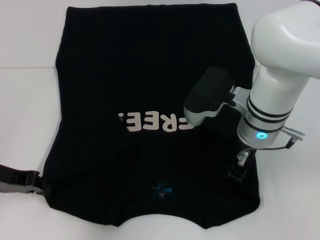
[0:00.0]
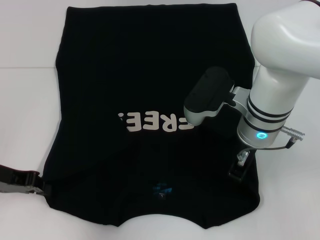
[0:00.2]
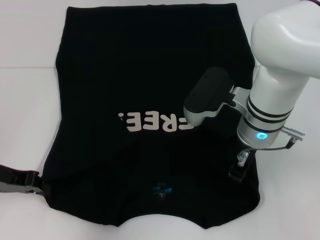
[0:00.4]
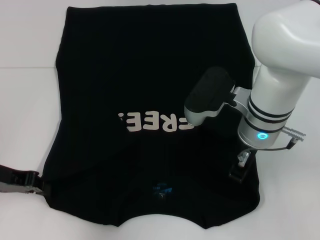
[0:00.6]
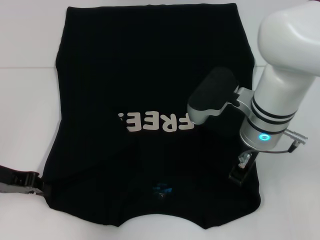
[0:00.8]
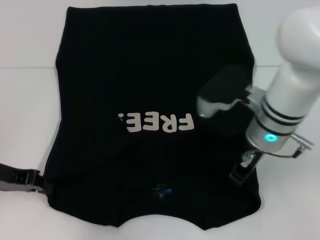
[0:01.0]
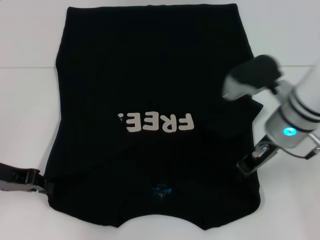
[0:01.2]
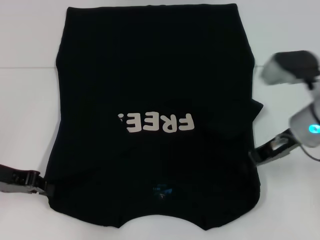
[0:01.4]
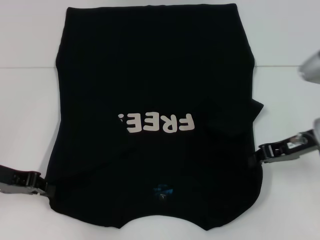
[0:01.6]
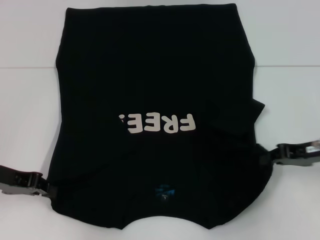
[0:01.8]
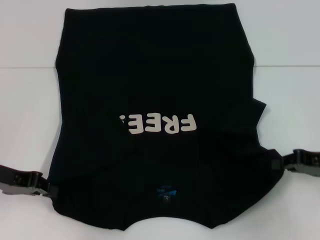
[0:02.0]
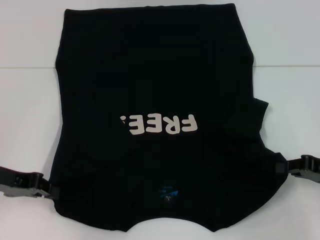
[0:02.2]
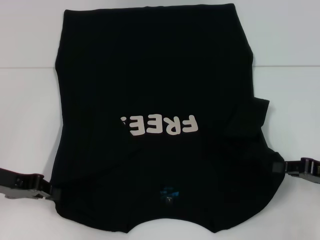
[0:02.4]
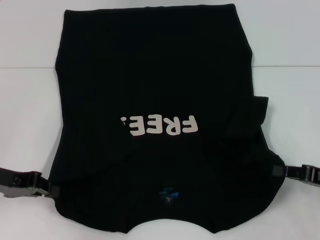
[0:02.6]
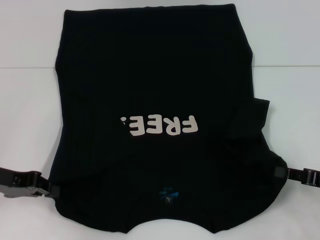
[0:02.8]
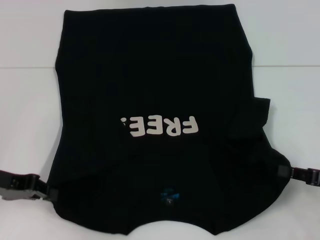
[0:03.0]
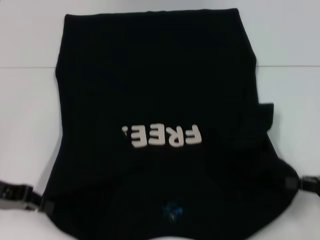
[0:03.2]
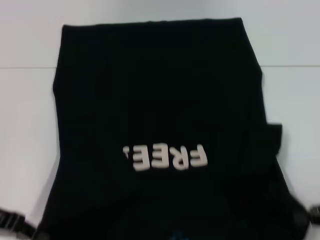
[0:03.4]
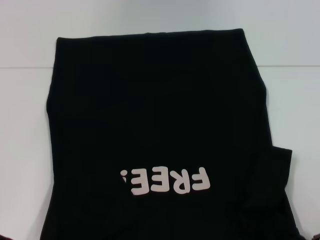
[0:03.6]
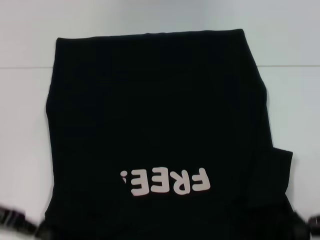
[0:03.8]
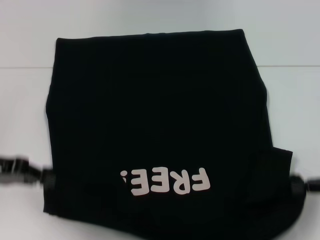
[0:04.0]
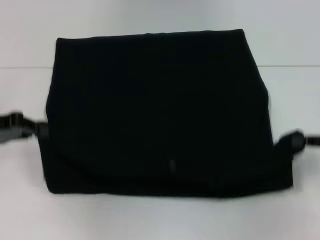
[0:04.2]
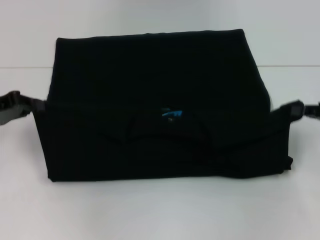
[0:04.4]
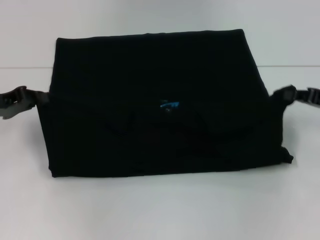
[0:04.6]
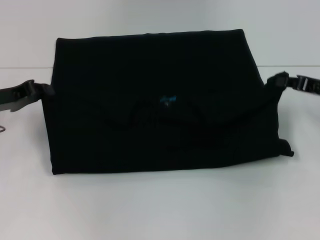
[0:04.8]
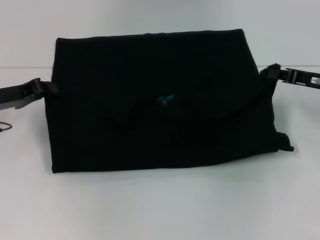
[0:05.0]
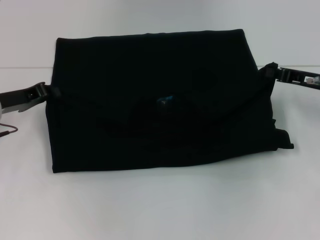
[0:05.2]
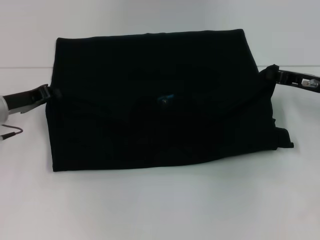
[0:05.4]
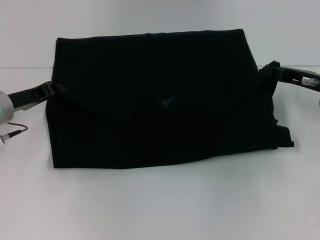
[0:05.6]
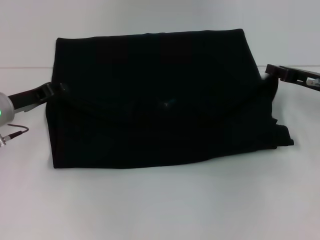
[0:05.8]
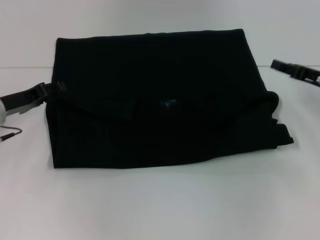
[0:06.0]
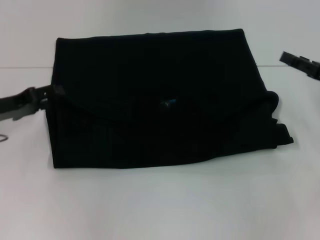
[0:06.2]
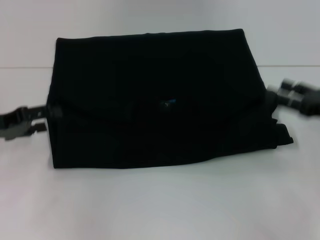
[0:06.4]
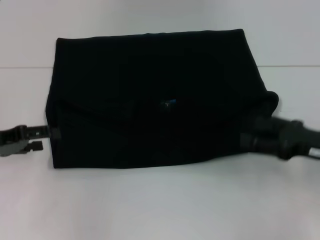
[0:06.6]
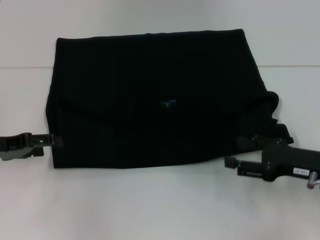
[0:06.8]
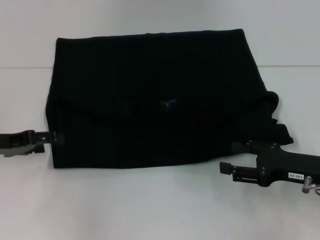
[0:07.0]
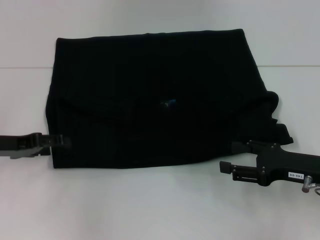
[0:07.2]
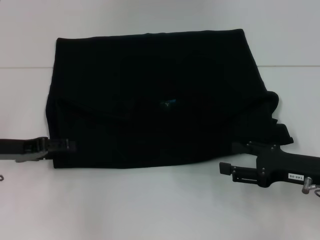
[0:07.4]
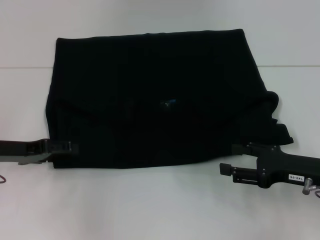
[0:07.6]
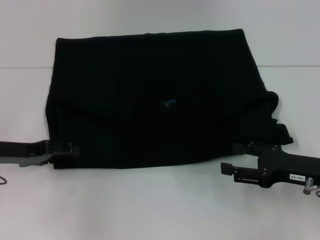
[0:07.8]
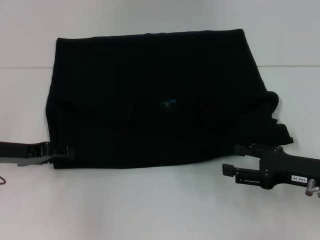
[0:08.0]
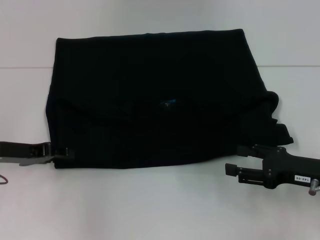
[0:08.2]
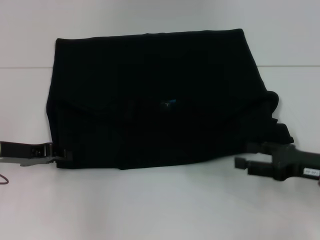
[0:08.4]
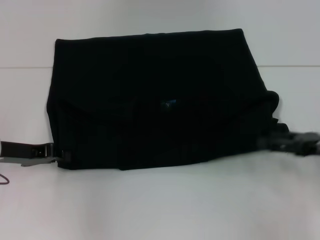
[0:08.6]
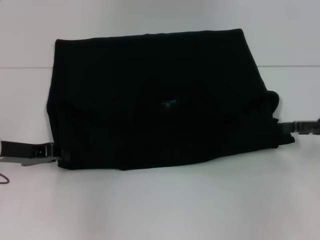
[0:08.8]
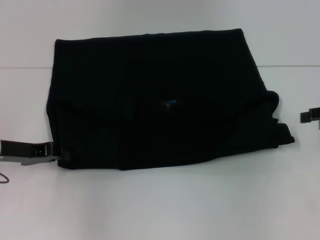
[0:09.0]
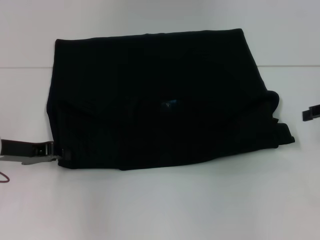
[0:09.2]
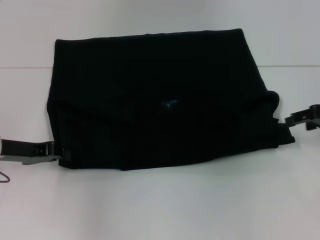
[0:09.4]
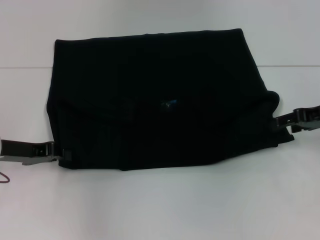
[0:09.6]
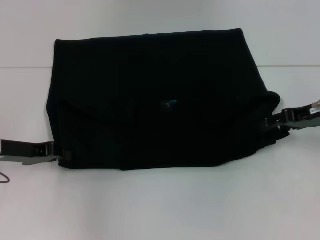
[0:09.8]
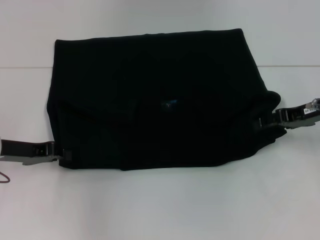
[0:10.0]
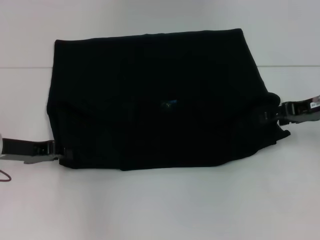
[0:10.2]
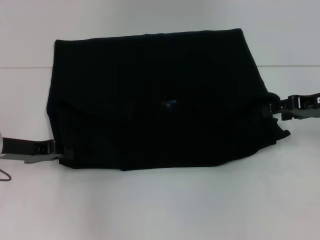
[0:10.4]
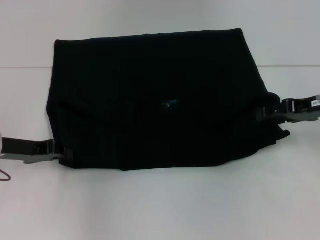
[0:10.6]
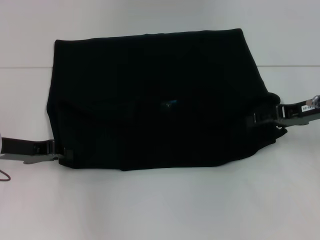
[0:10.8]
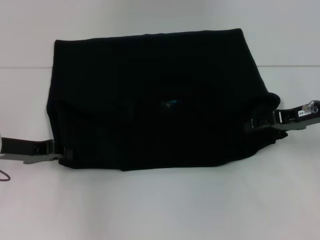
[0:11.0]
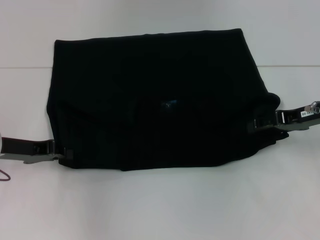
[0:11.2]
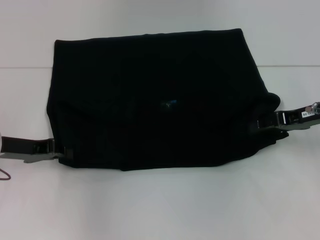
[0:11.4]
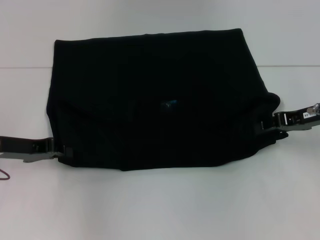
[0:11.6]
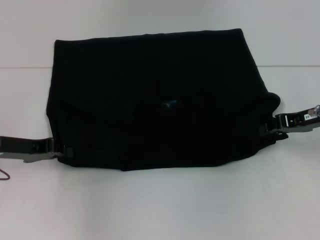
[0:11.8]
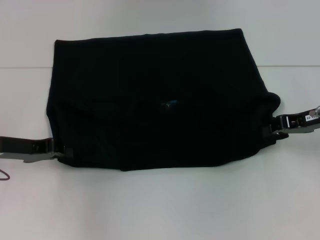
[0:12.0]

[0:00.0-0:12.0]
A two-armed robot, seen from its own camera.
Step, 0:01.6 to 0:06.0: Fold the clothes with your left hand.
Step, 0:01.6 to 0:06.0: Fold the clothes with your right hand.
0:00.0 to 0:01.6: The right gripper shifts roughly 15 cm to the right, and closes.
0:01.6 to 0:03.0: The right gripper moves backward, to the right and downward, about 15 cm.
0:03.0 to 0:04.4: The left gripper moves approximately 5 cm, while the right gripper is displaced forward and upward by some 10 cm.
0:04.4 to 0:06.0: The right gripper goes some 5 cm forward. The left gripper changes place by roughly 5 cm, and opens up.
0:06.0 to 0:07.6: The left gripper opens its fingers, while the right gripper shifts about 10 cm backward, and opens up.
0:07.6 to 0:09.0: The left gripper closes up; the right gripper is displaced to the right, upward and forward by approximately 15 cm.
0:09.0 to 0:10.4: The right gripper travels to the left by about 5 cm.
0:10.4 to 0:12.0: The right gripper closes.

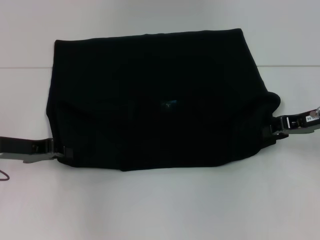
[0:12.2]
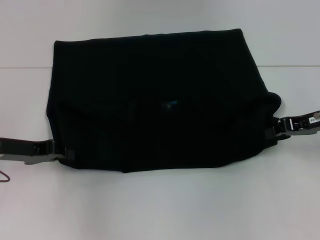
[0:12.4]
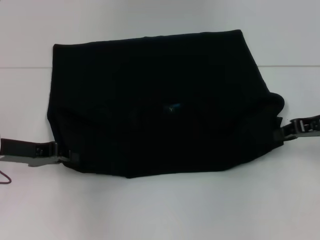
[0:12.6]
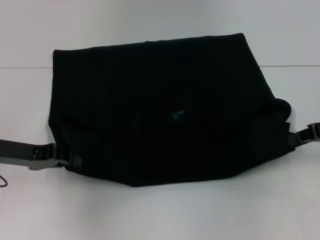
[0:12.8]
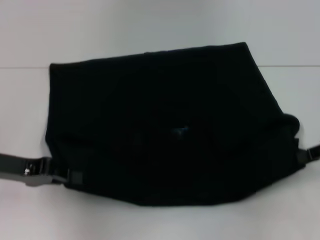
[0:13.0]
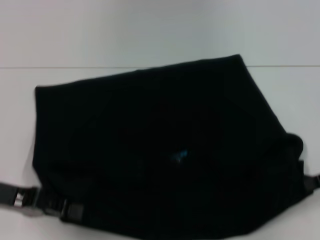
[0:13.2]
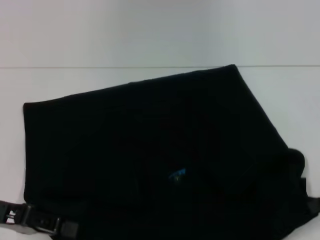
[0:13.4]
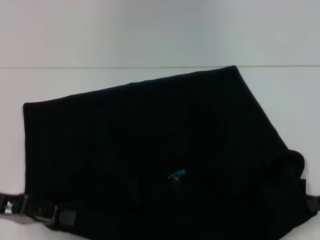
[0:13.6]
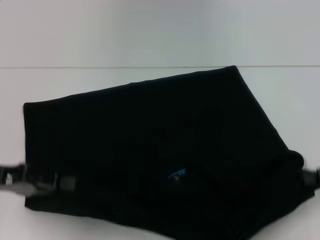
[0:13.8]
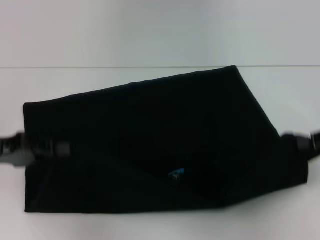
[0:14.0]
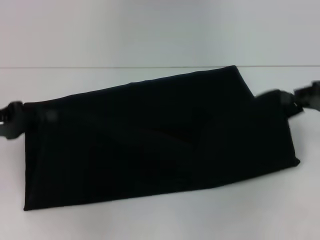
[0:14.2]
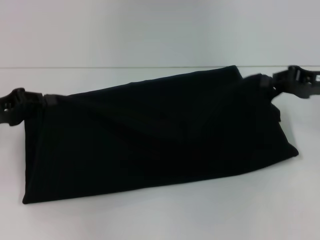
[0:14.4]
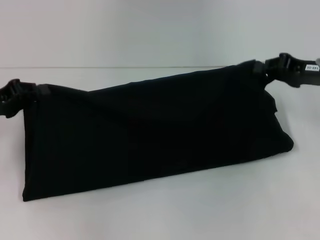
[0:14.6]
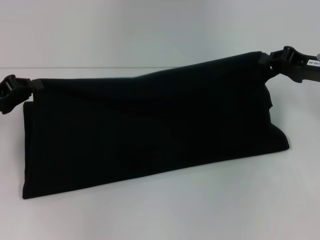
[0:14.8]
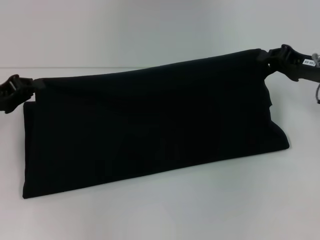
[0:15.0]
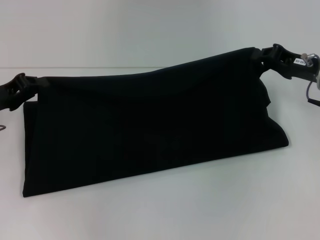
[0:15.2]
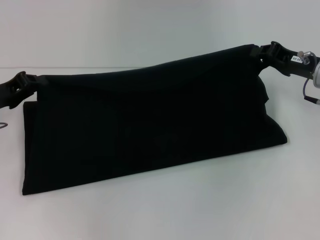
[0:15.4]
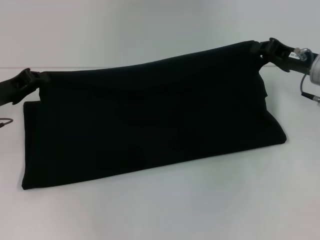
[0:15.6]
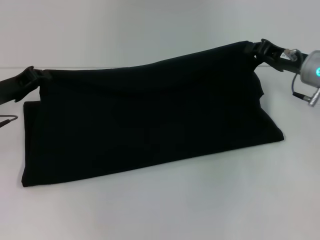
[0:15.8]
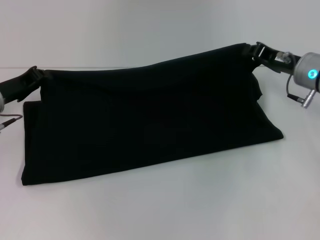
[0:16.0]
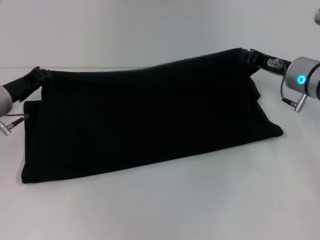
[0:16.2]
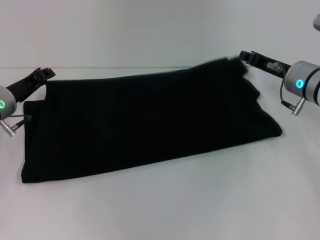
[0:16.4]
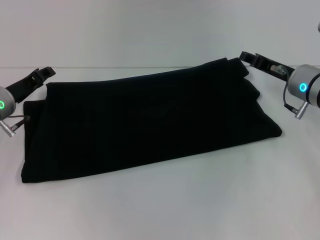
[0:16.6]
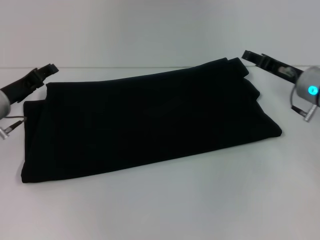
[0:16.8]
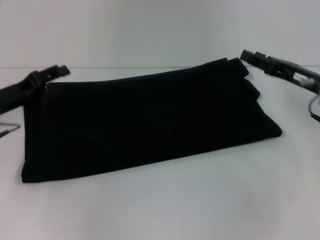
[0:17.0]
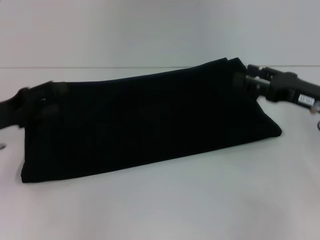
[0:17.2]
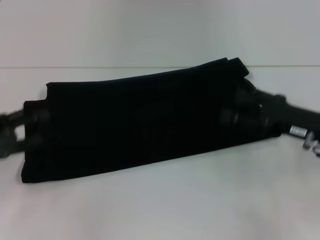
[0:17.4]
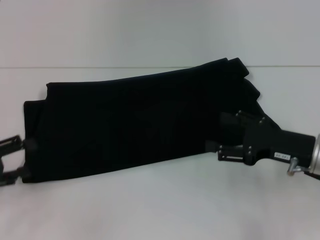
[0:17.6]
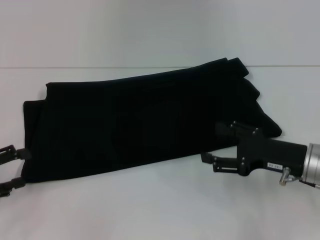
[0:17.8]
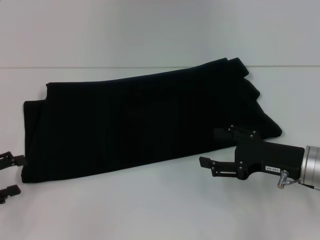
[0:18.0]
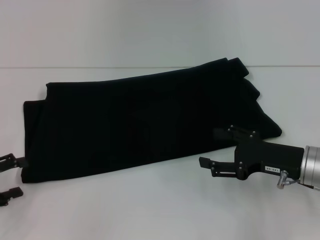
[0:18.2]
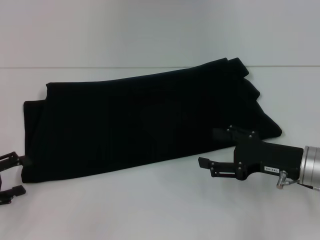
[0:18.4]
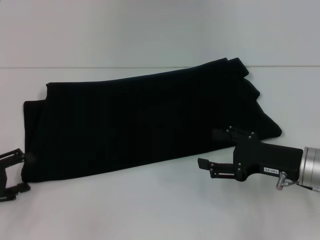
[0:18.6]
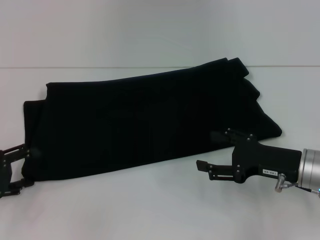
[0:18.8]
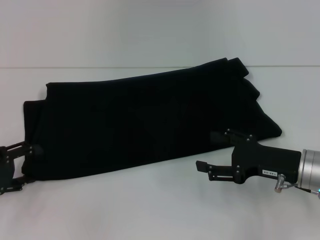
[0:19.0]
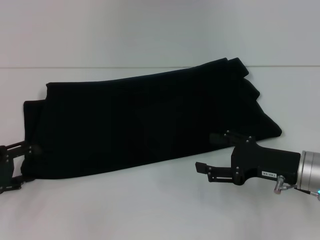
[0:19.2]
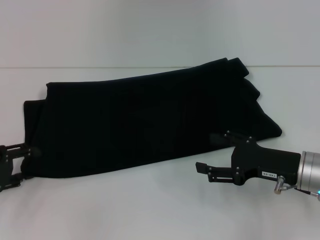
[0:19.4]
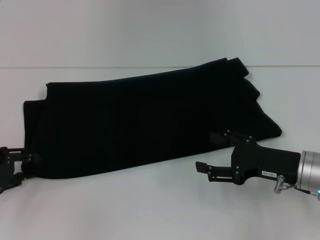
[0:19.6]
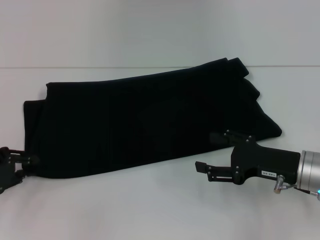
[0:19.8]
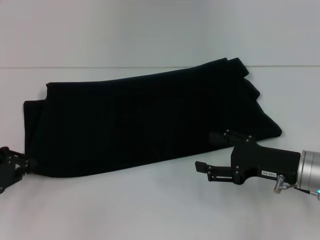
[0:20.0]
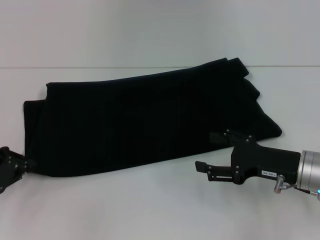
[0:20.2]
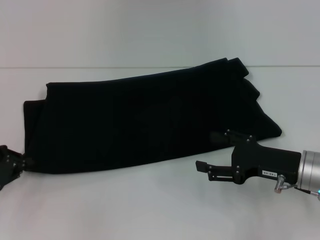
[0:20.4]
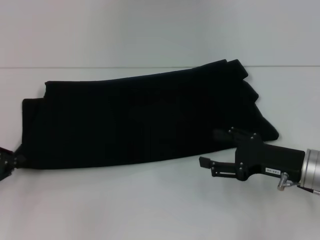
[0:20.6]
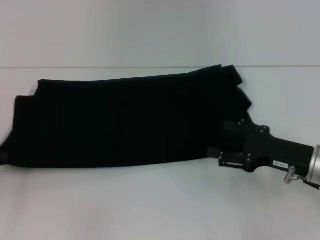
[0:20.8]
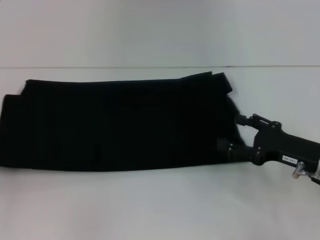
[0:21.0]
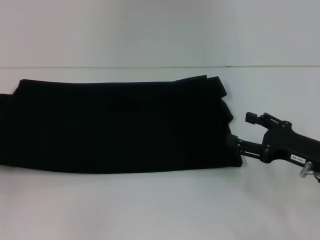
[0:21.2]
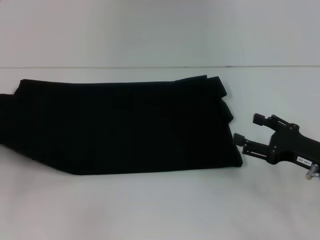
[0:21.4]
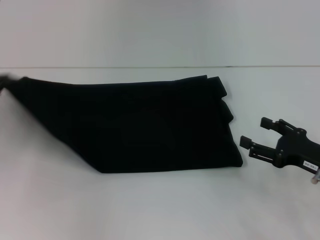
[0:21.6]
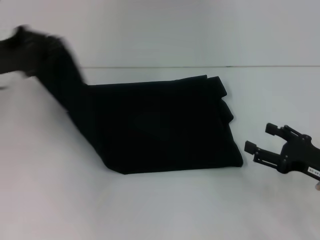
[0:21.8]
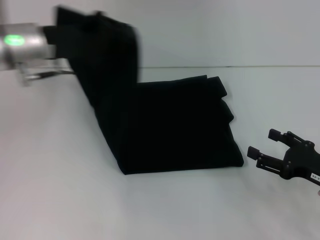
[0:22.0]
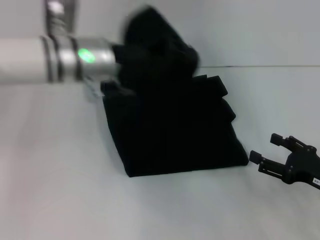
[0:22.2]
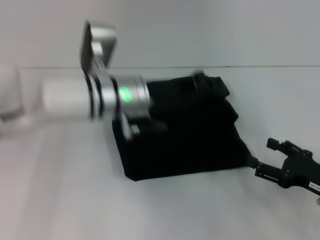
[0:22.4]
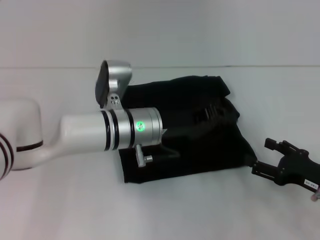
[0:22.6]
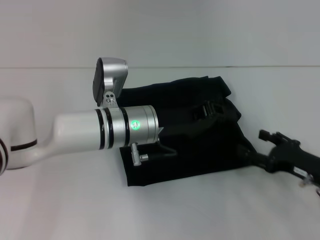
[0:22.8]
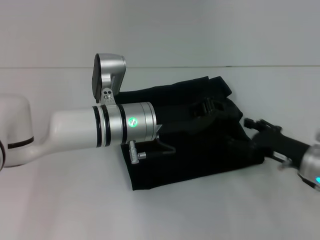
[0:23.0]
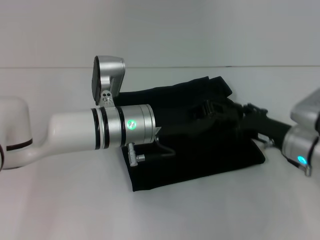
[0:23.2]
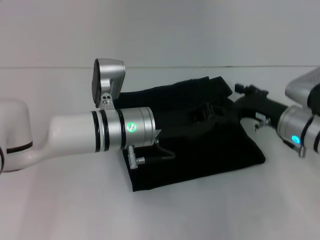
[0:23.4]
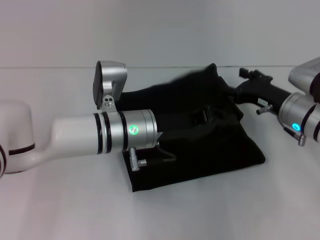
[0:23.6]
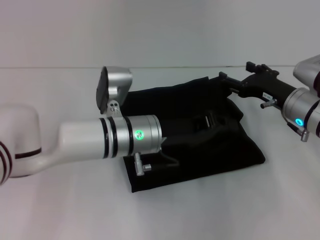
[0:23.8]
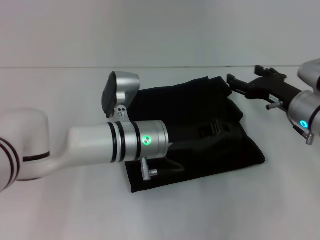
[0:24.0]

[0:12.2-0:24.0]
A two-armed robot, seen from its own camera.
Step, 0:13.4 to 0:16.4: Fold the clothes with your right hand.
0:12.2 to 0:13.6: The right gripper shifts some 10 cm backward and to the right. Meanwhile the left gripper shifts approximately 10 cm backward.
0:13.6 to 0:15.2: The left gripper heads forward, covering approximately 10 cm, while the right gripper shifts approximately 15 cm forward and to the left.
0:15.2 to 0:16.6: The left gripper ends up some 5 cm from where it was, and opens its fingers; the right gripper ends up approximately 5 cm from where it was.
0:16.6 to 0:18.2: The right gripper moves backward, some 10 cm, and opens its fingers, while the left gripper travels backward and to the left by approximately 20 cm, and opens.
0:18.2 to 0:19.6: There are only small adjustments of the grippers.
0:19.6 to 0:21.0: The left gripper travels to the left by about 5 cm, and closes.
0:21.0 to 0:22.6: The left gripper moves to the right, about 35 cm. Meanwhile the right gripper shifts by approximately 5 cm.
0:22.6 to 0:24.0: The right gripper shifts approximately 15 cm forward and to the left.
